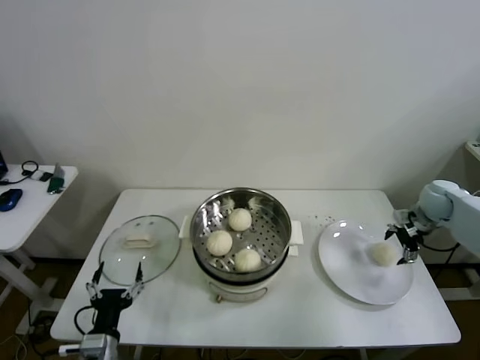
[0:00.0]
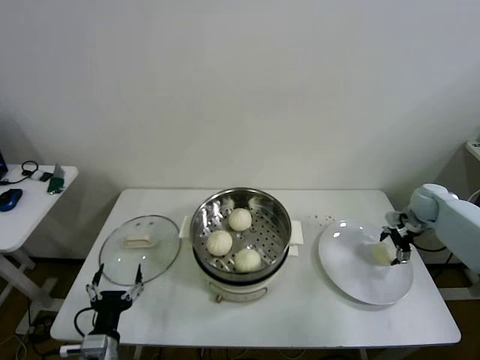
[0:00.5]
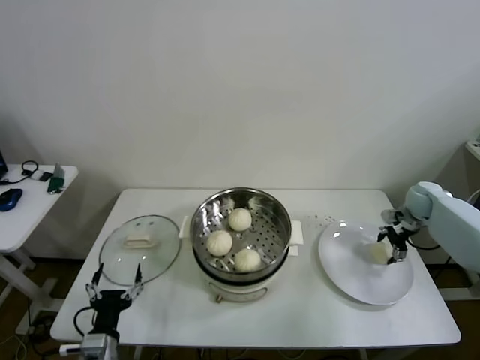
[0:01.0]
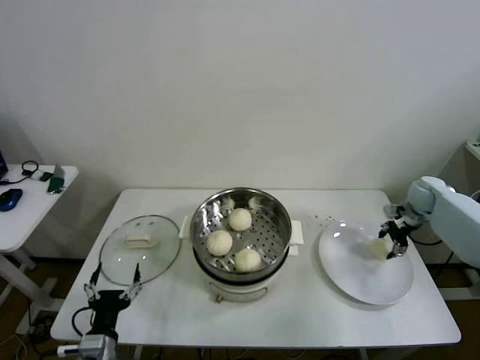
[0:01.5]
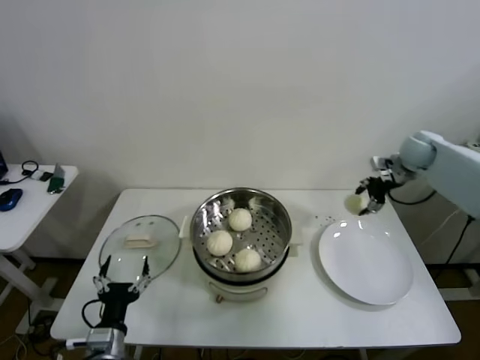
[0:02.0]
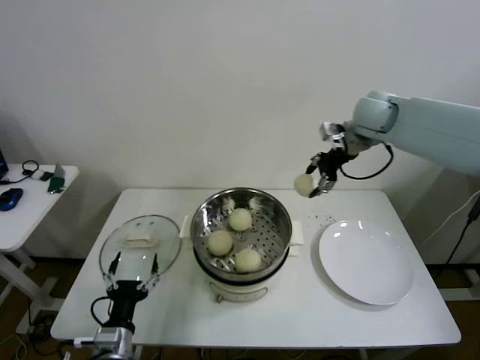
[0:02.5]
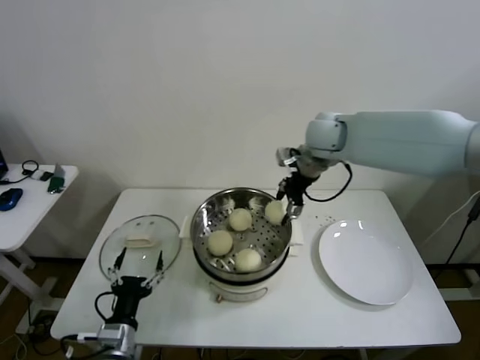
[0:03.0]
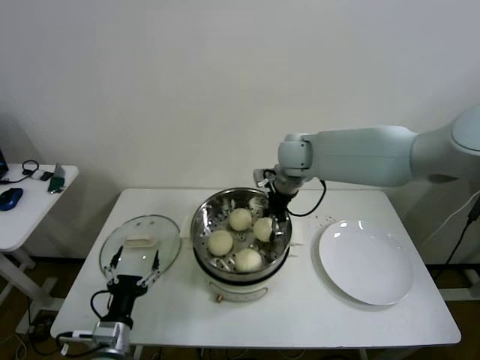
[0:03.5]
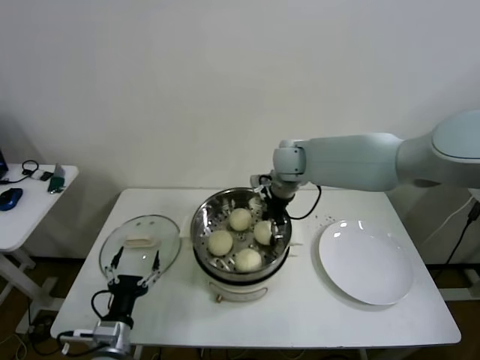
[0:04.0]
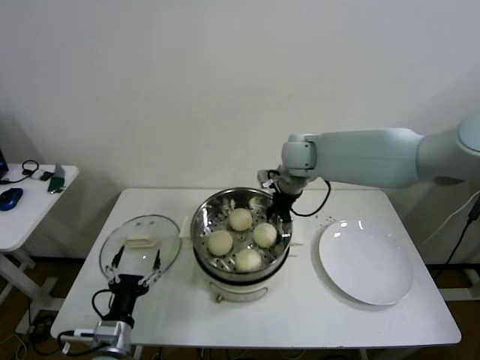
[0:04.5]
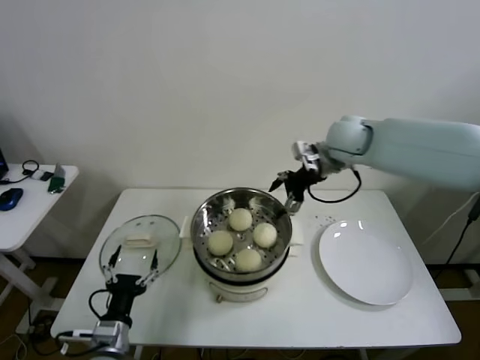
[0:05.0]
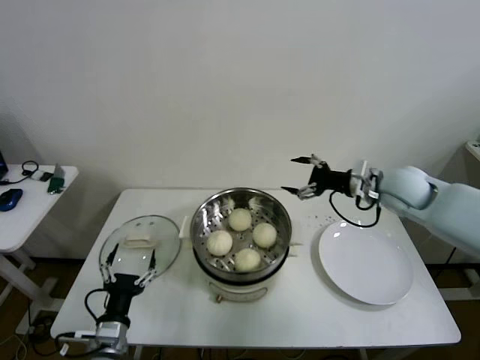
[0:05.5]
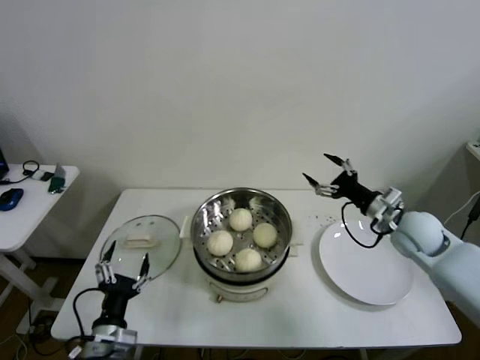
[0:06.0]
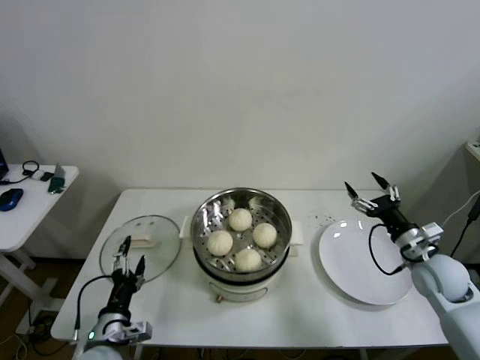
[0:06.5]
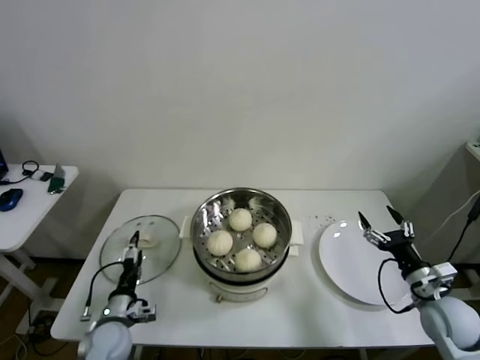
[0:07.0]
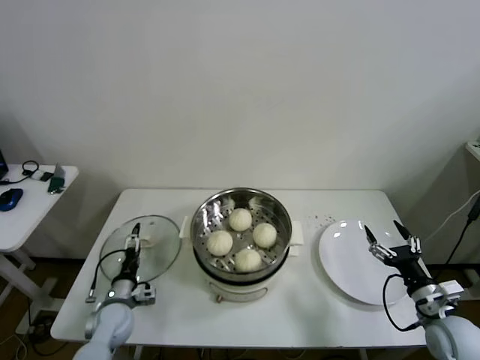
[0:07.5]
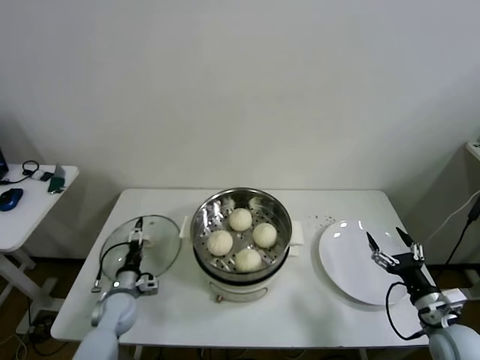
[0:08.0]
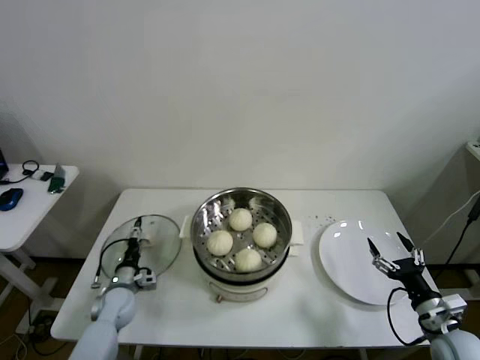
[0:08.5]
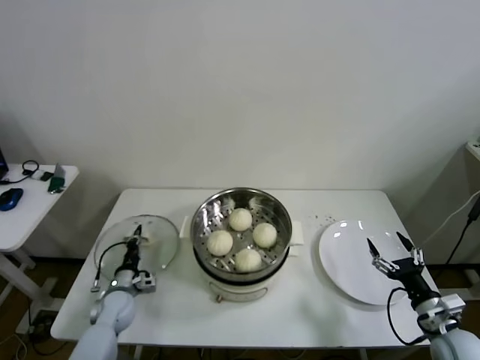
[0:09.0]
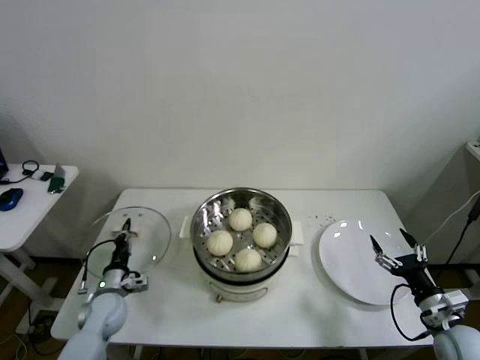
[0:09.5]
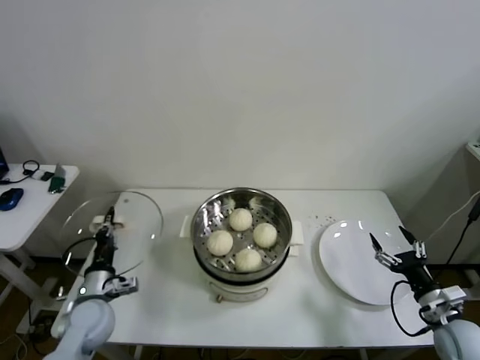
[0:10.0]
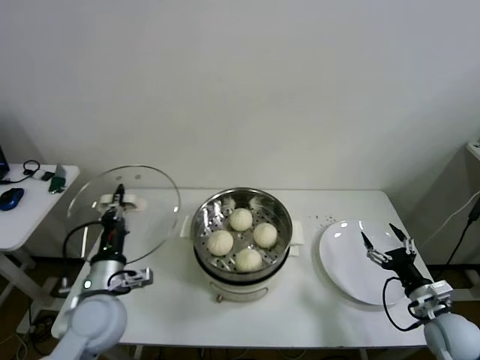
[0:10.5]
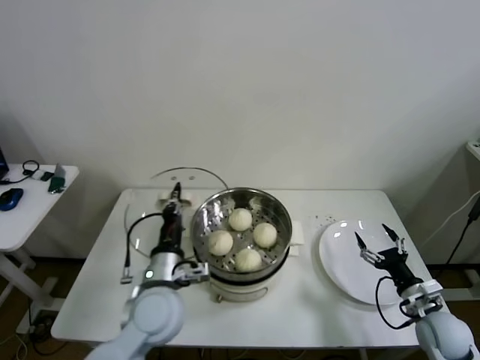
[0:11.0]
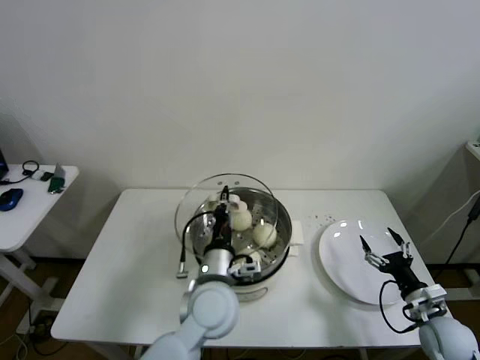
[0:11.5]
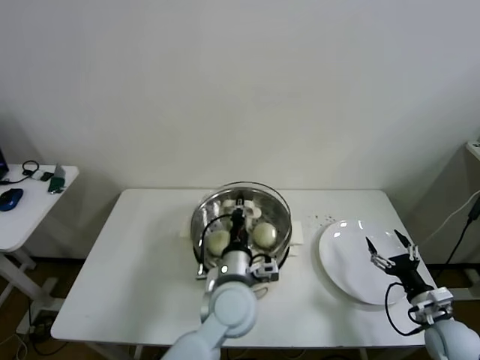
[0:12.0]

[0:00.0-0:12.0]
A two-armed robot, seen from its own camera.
Step, 0:01.5 to 0:04.0: Place the baozi on the steamer with right gripper.
Step, 0:04.5 to 0:09.0: Grasp the pot lid with left gripper.
0:00.0 to 0:02.0: The right gripper is displaced upward, forward and to the left by some 15 cm, and closes.
0:02.0 to 0:04.0: The right gripper travels to the left by roughly 30 cm.
0:04.0 to 0:06.0: The right gripper goes approximately 30 cm to the right and backward, and opens up.
0:06.0 to 0:08.0: The left gripper is displaced forward and downward by roughly 20 cm; the right gripper shifts approximately 25 cm backward and downward.
0:08.0 to 0:10.0: The left gripper moves upward, about 10 cm, and closes up.
0:10.0 to 0:12.0: The left gripper travels to the right by roughly 30 cm.

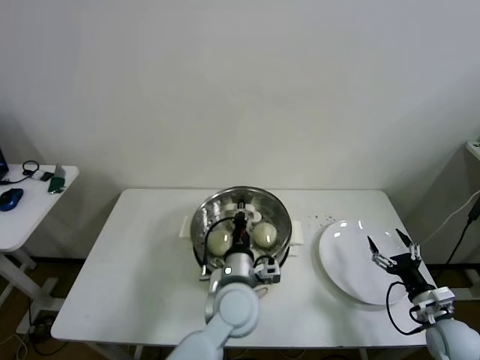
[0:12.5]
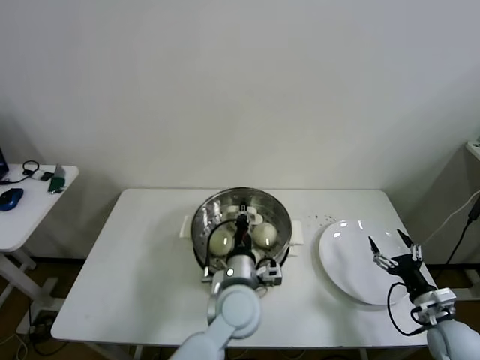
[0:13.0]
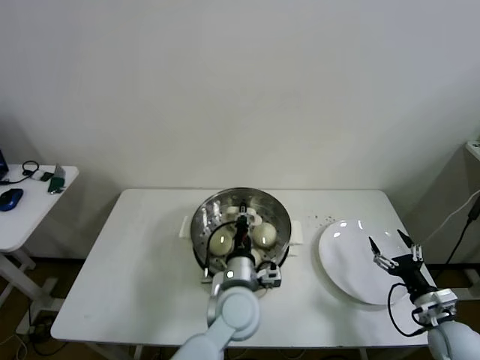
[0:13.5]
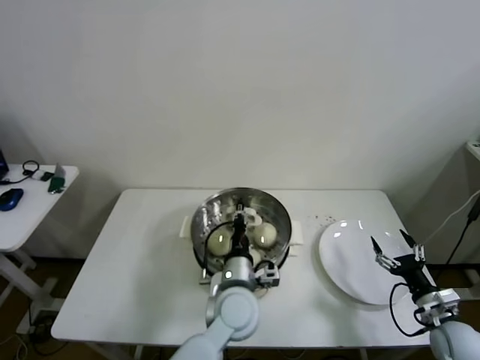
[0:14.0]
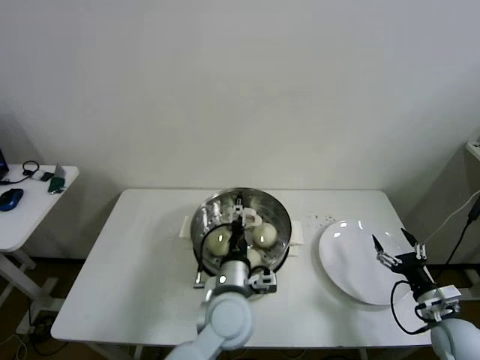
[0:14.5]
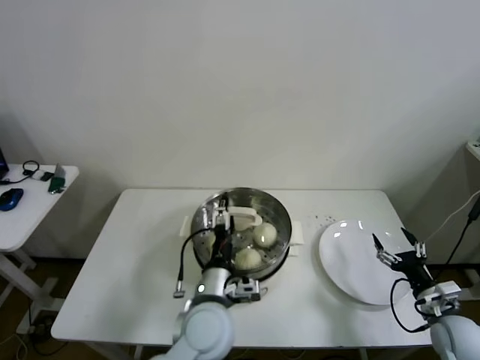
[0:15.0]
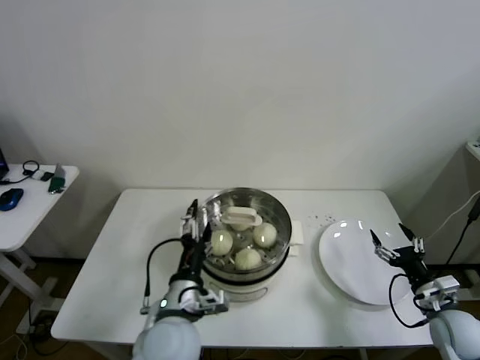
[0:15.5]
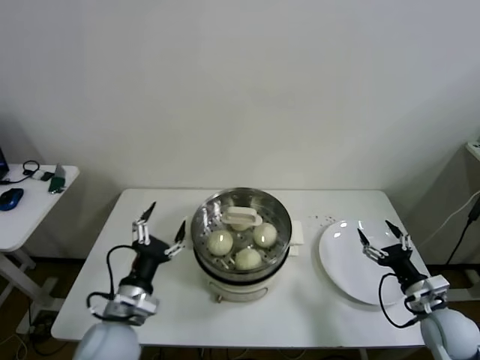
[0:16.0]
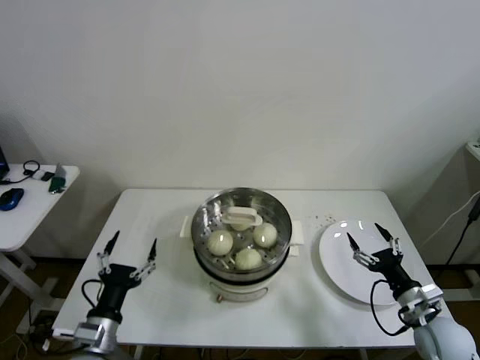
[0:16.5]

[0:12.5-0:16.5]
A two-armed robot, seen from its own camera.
0:12.5 to 0:14.5: The left gripper opens its fingers.
0:14.5 to 0:16.5: The right gripper changes place by approximately 5 cm. Meanwhile the left gripper heads to the left, covering approximately 25 cm.

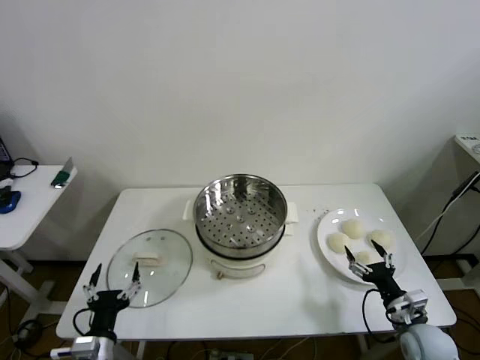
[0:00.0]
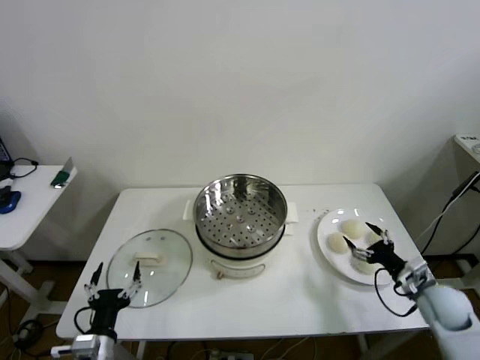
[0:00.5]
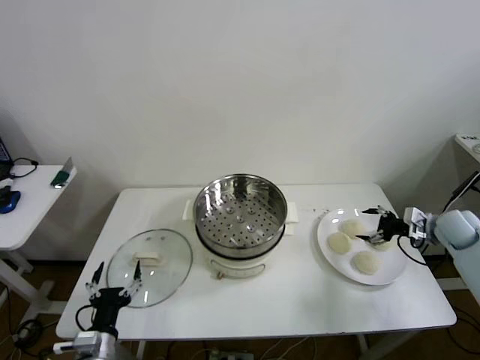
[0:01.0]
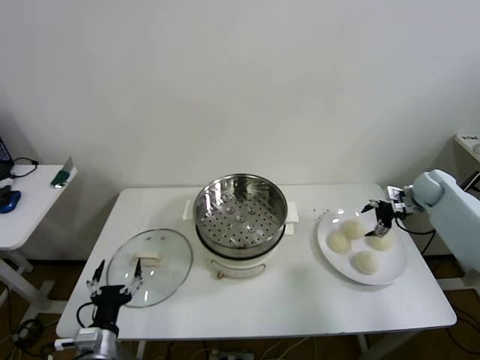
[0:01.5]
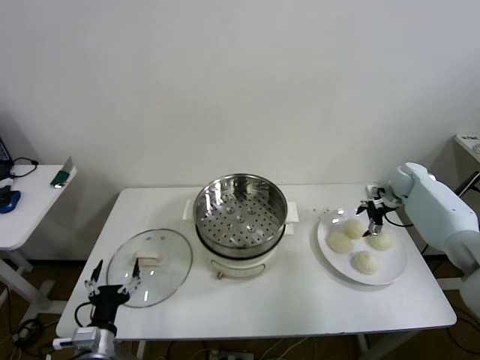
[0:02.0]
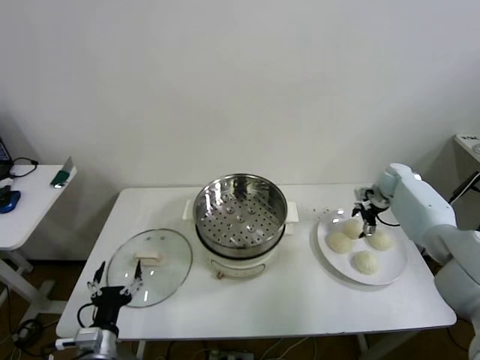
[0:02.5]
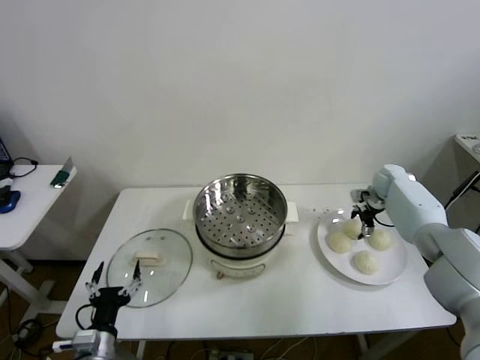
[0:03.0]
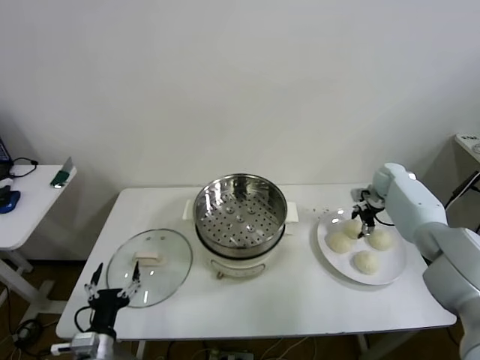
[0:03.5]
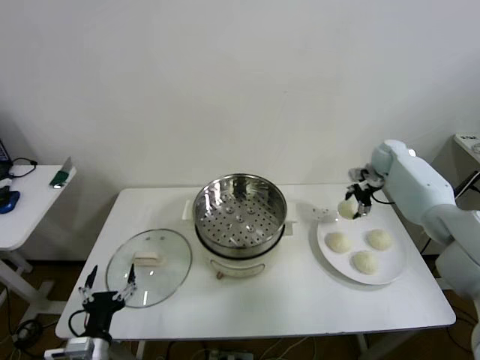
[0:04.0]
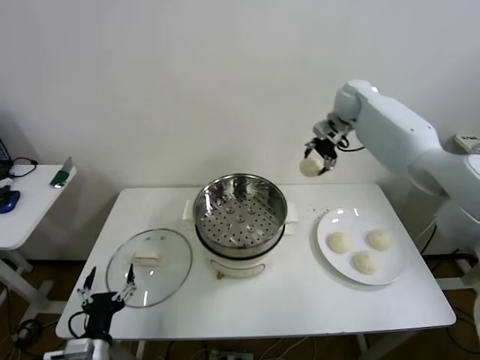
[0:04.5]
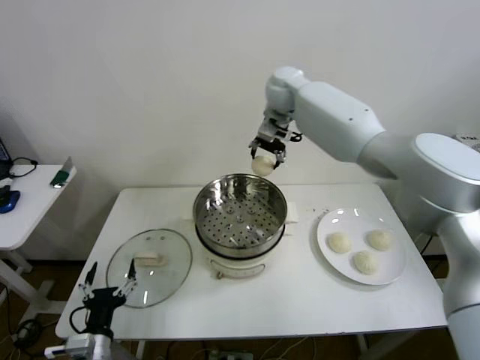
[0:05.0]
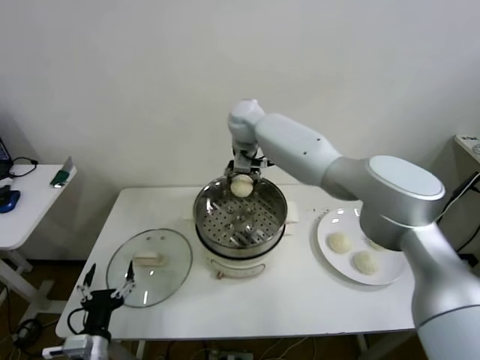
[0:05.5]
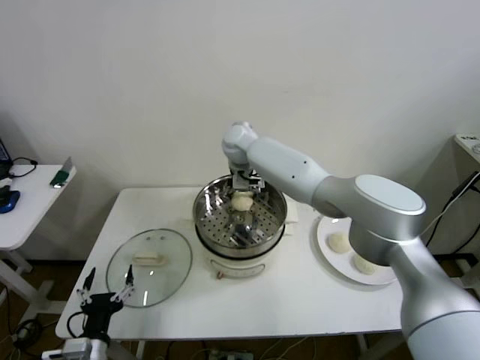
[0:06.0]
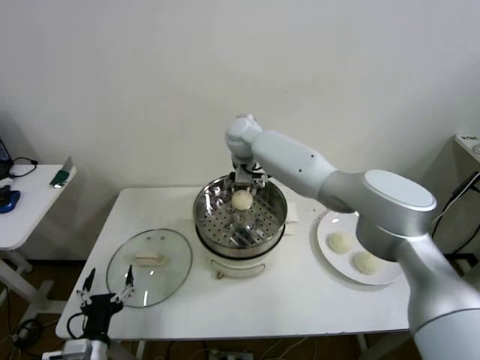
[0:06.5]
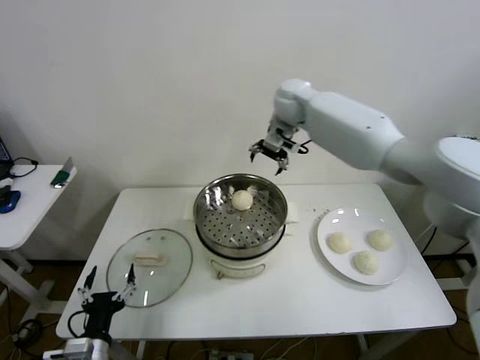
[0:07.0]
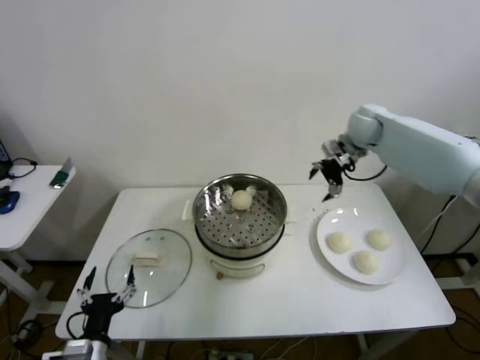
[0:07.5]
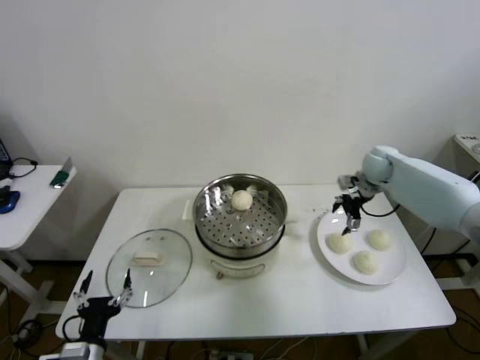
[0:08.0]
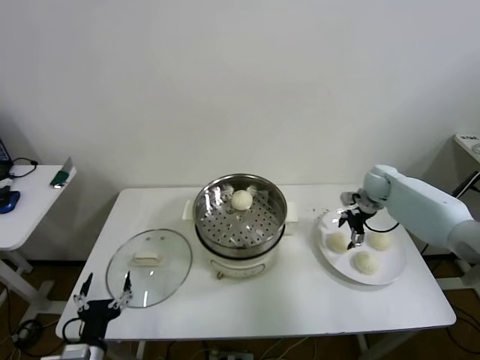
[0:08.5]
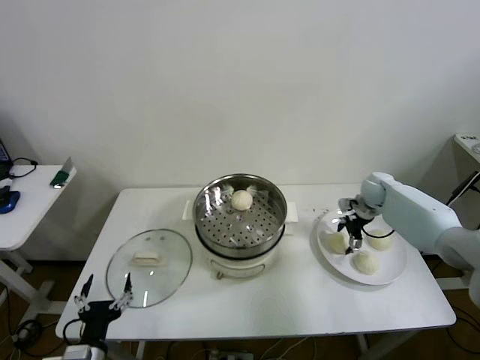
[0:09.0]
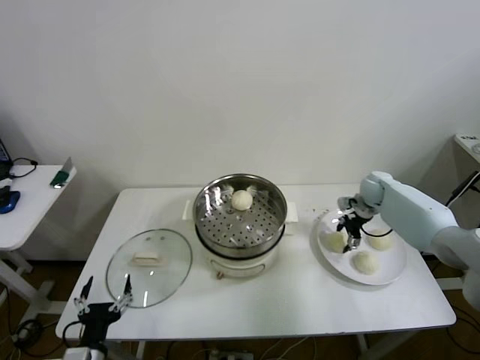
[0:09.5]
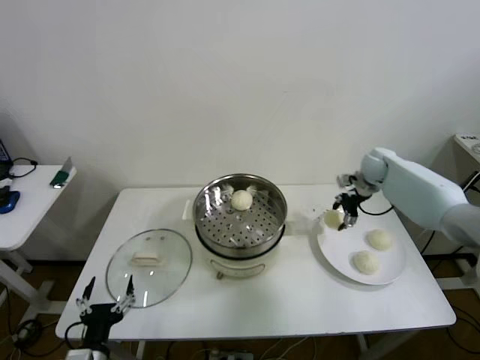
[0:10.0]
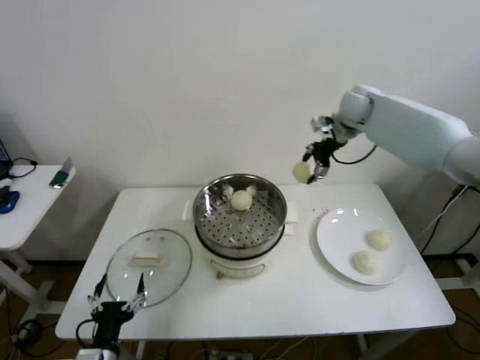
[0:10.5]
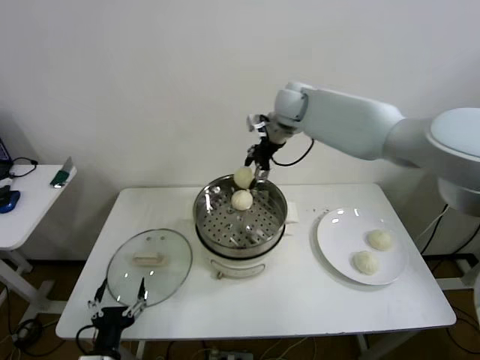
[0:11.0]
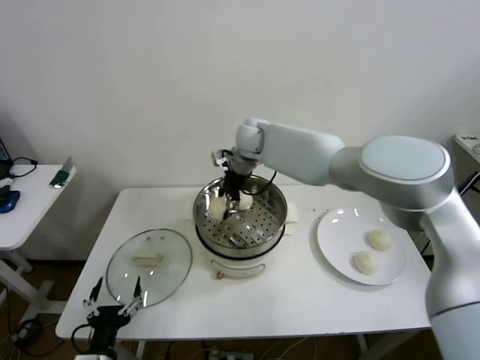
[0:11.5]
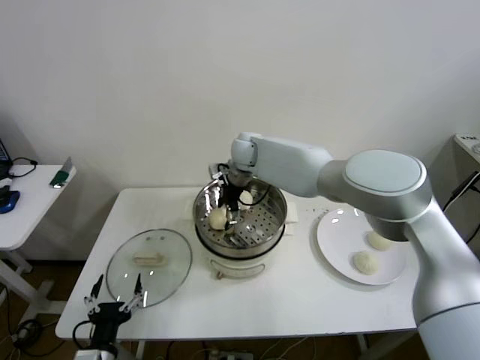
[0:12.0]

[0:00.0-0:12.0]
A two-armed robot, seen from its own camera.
Step, 0:00.0 to 0:03.0: Grasp the baozi in the plate with right gripper.
Step, 0:03.5 to 0:06.5: Place the baozi on the steamer with right gripper.
Step, 0:07.0 to 0:09.5: Grasp the baozi in the plate with right gripper.
0:02.0 to 0:04.0: The right gripper moves upward and to the left, about 10 cm, and closes up.
0:04.0 to 0:06.0: The right gripper shifts roughly 40 cm to the left.
0:06.0 to 0:08.0: The right gripper shifts approximately 35 cm to the right, and opens its fingers.
0:08.0 to 0:10.0: The right gripper moves roughly 10 cm downward and comes back, and closes up.
0:10.0 to 0:12.0: The right gripper shifts some 35 cm to the left, and opens its fingers.
